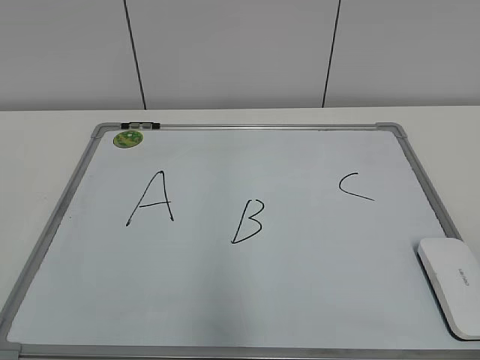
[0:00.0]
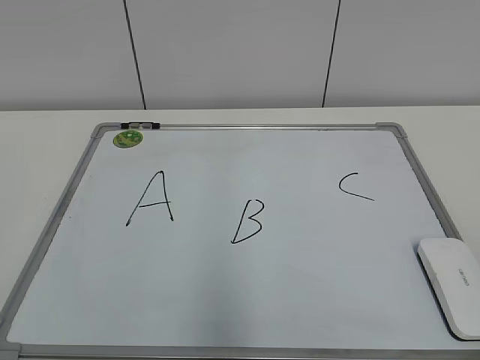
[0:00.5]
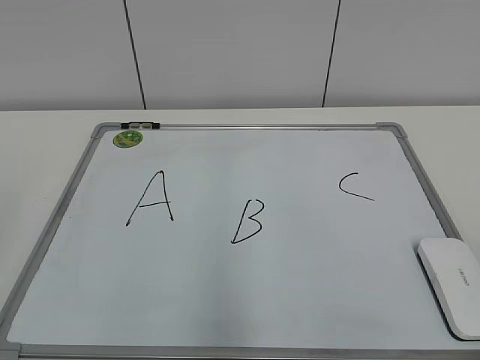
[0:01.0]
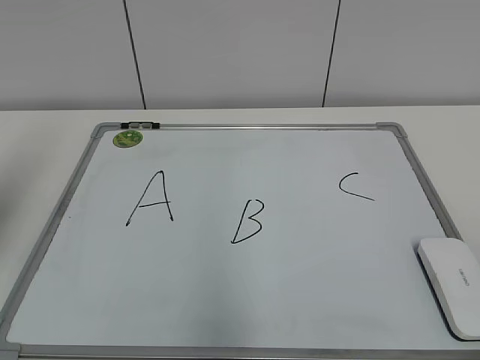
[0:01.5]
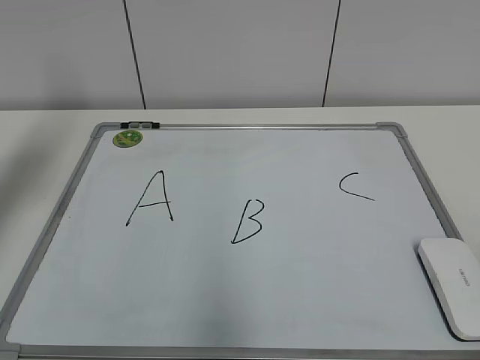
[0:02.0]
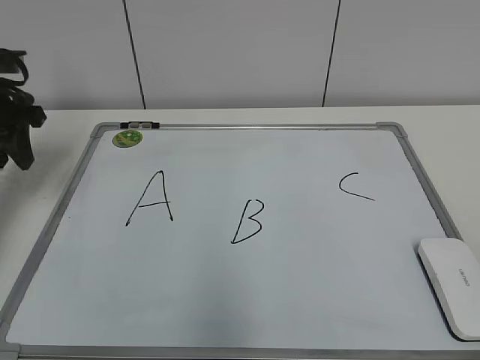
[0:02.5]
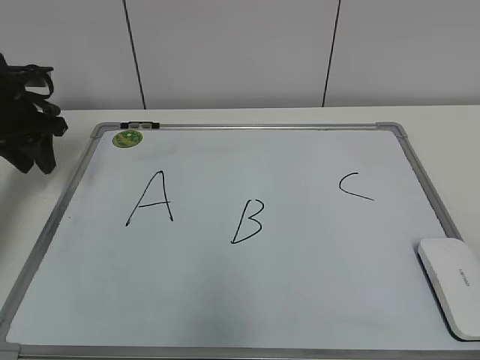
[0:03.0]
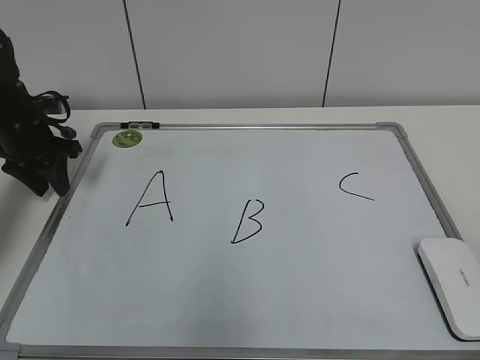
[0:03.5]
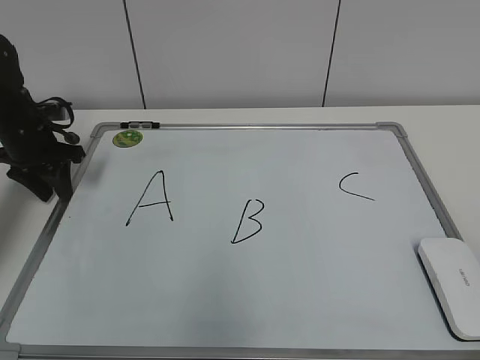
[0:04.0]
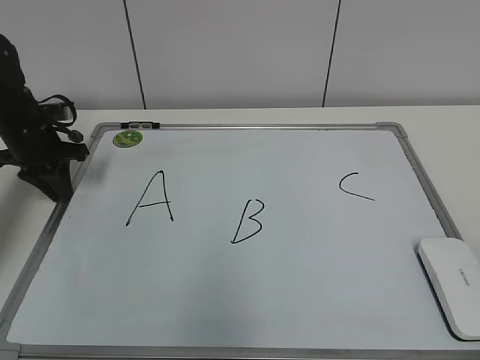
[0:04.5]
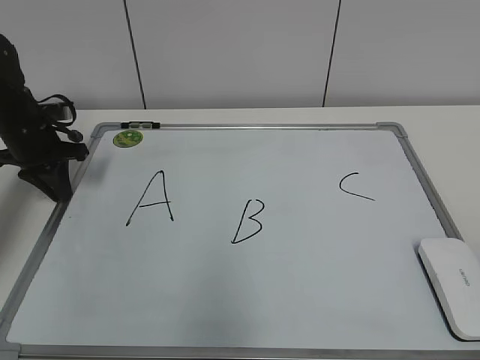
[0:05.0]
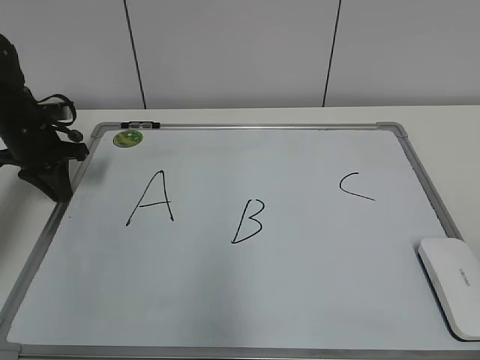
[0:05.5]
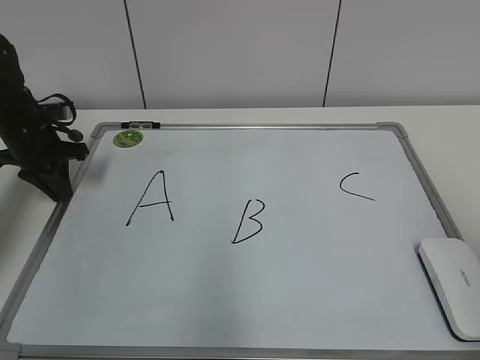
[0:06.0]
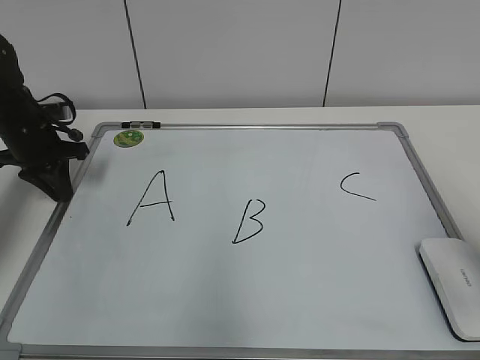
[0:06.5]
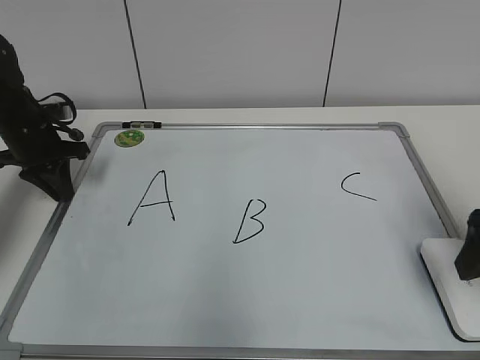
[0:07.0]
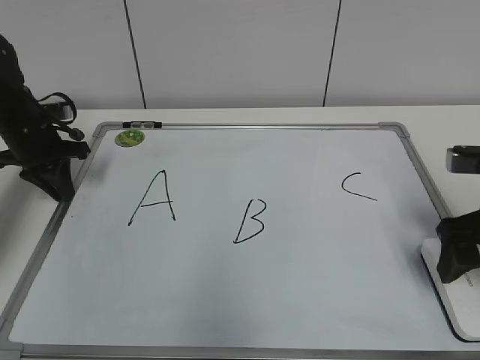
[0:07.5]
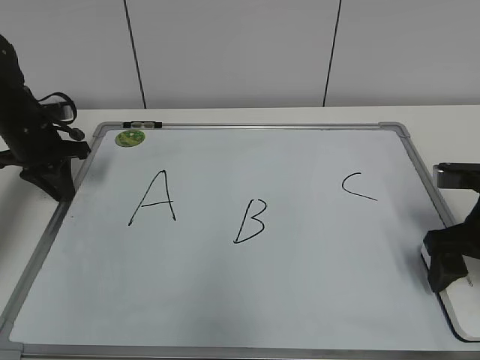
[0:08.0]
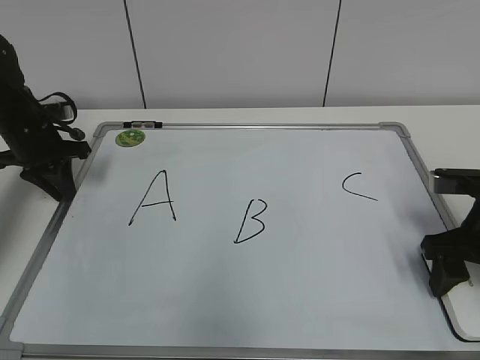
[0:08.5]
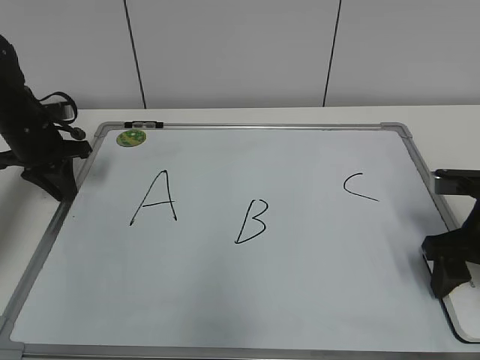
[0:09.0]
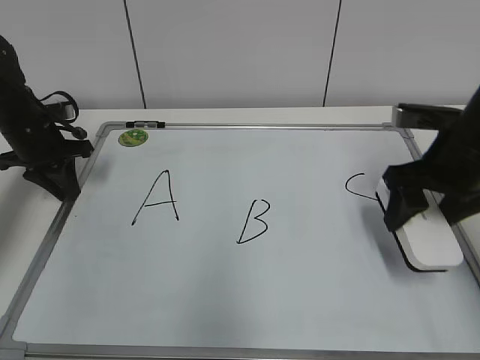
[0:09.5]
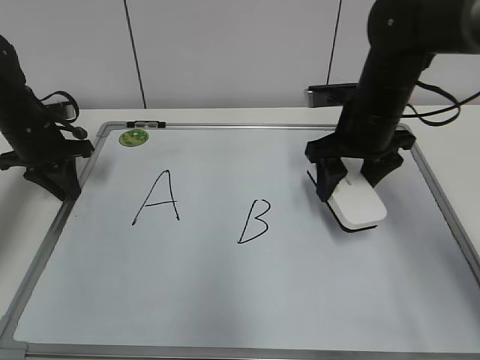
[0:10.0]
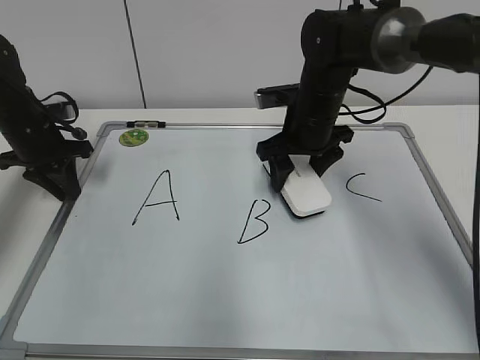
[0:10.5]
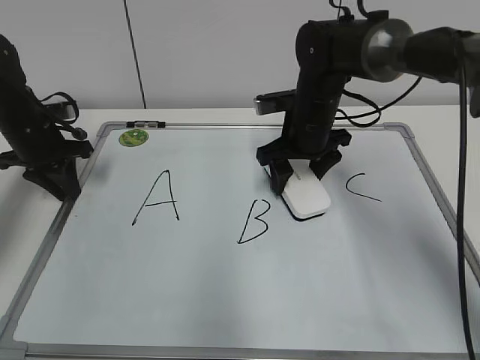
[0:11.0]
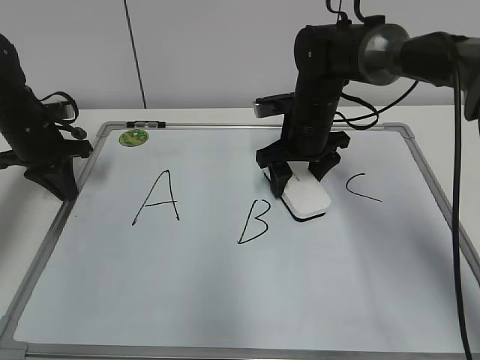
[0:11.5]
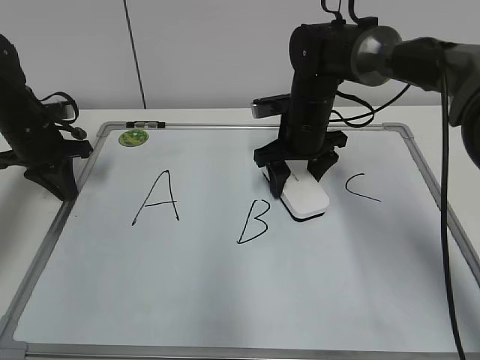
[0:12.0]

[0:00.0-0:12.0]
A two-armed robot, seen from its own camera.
Task of the whole recording: pick up the eraser on the blackboard and erase the letter "B".
Step, 0:00.0 to 0:04.5: Hold the drawing board steady with your left hand.
Step, 0:05.0 to 0:08.5: Grab the eraser with your right hand.
0:02.0 to 0:04.0: The left gripper goes roughly 20 cm downward and forward.
0:04.0 to 0:06.0: The left gripper closes its fingers.
0:06.0 to 0:08.0: The right gripper is displaced forward and downward by about 25 cm, and opens up.
0:08.0 to 0:10.0: The right gripper moves forward and to the left, approximately 15 cm, and closes up.
0:10.0 to 0:12.0: The right gripper heads to the left, forward and downward, covering approximately 10 cm.

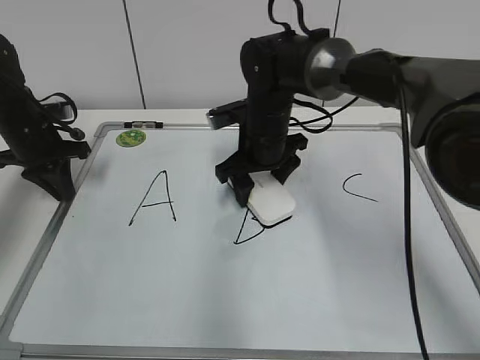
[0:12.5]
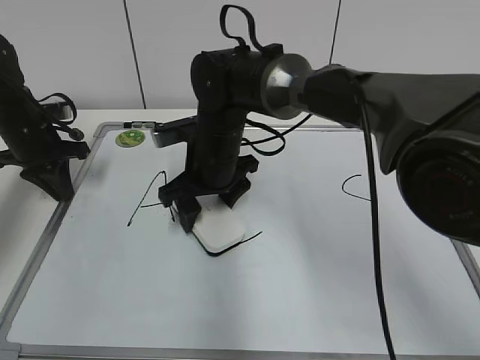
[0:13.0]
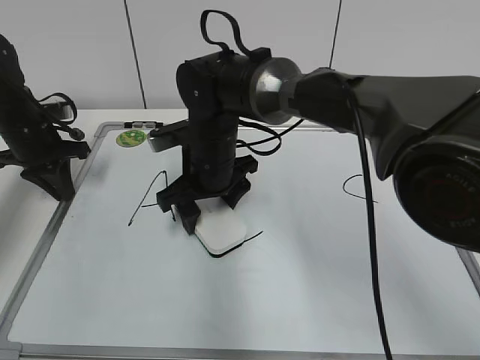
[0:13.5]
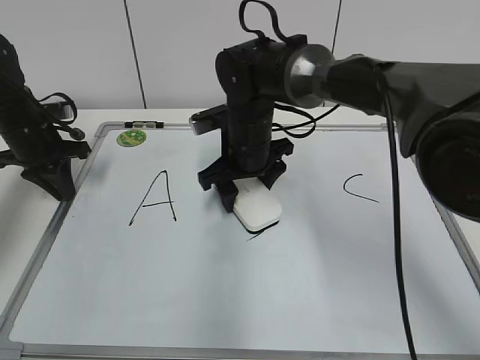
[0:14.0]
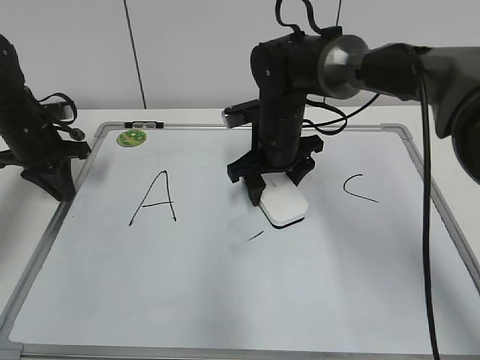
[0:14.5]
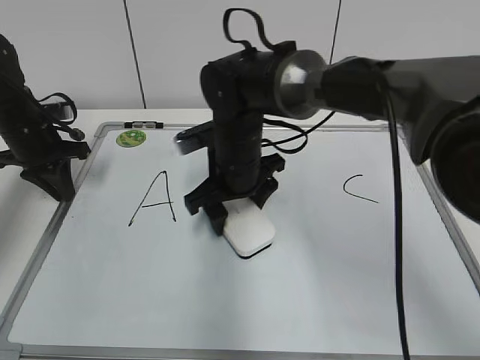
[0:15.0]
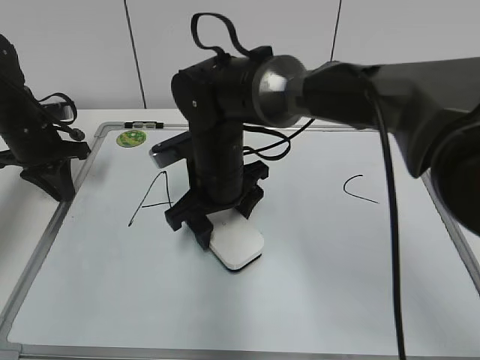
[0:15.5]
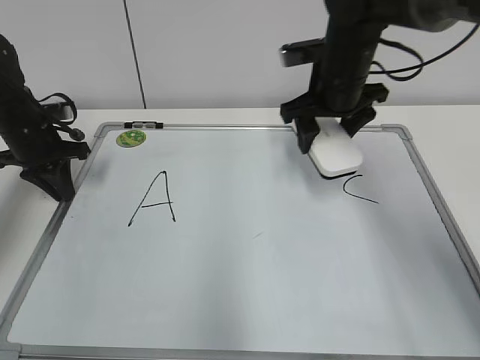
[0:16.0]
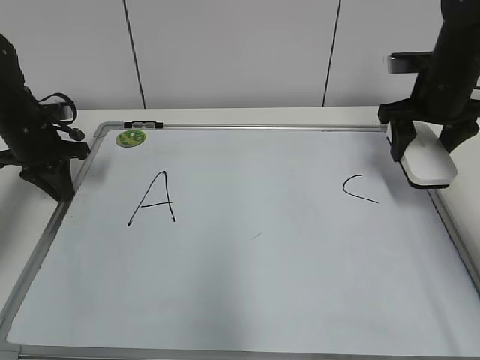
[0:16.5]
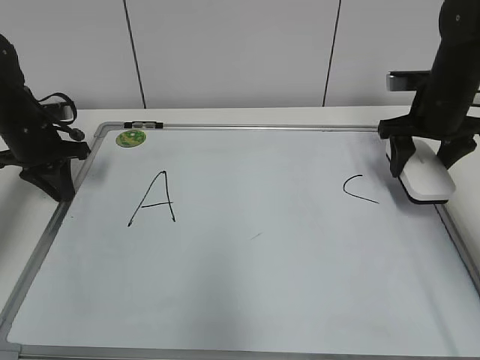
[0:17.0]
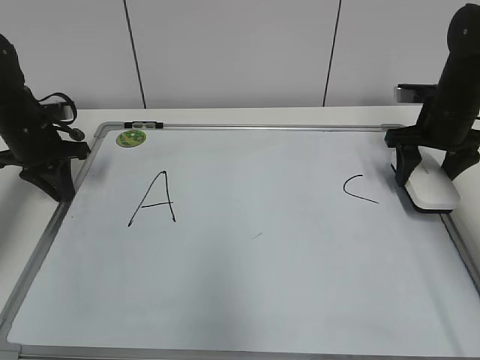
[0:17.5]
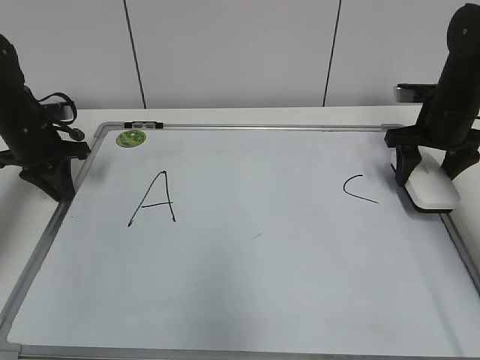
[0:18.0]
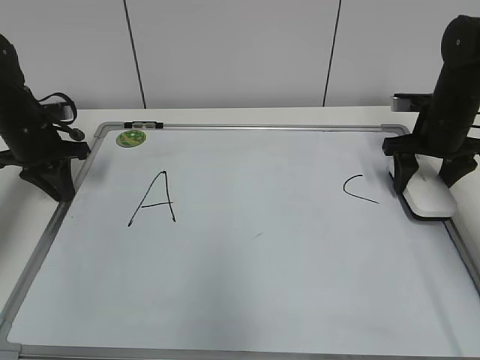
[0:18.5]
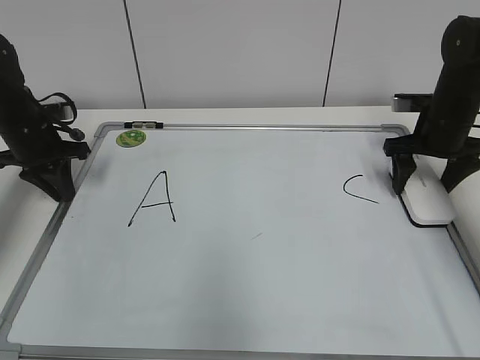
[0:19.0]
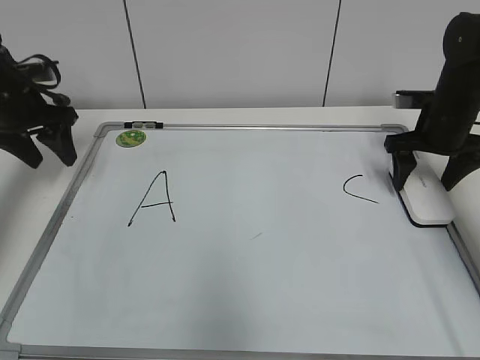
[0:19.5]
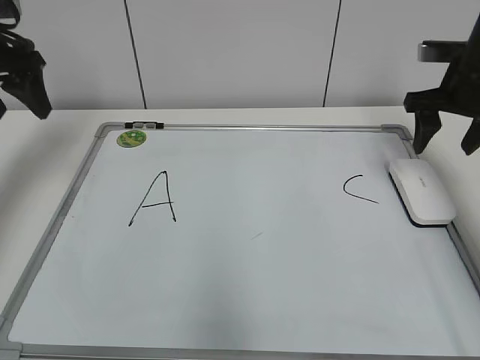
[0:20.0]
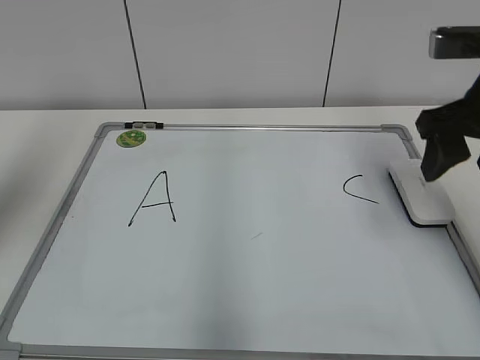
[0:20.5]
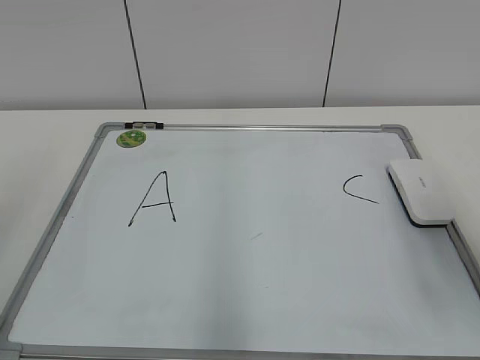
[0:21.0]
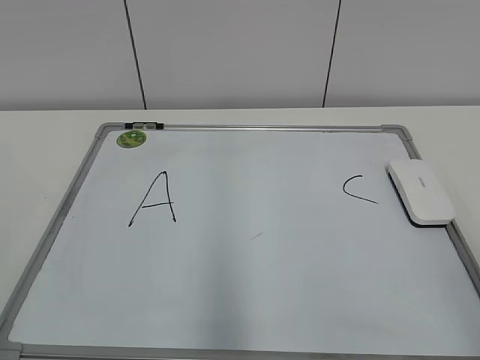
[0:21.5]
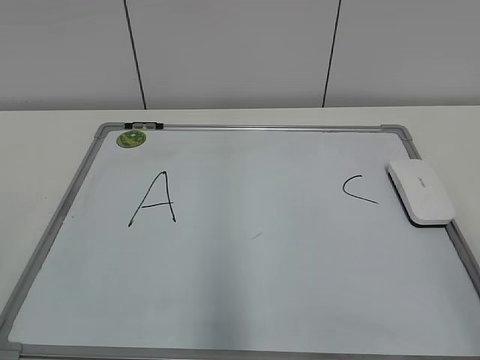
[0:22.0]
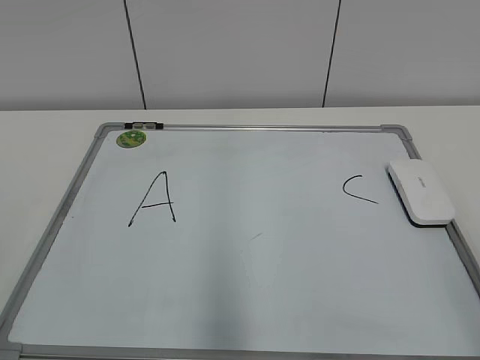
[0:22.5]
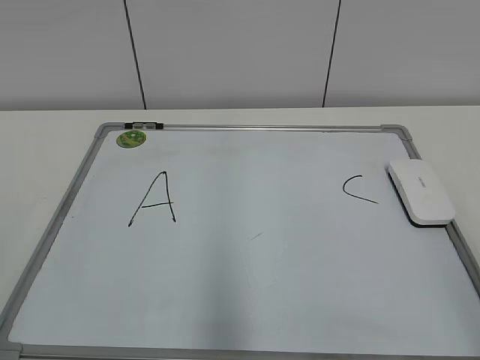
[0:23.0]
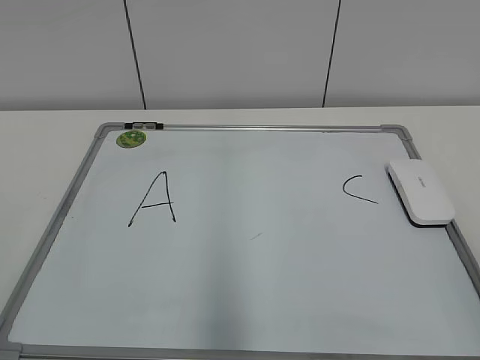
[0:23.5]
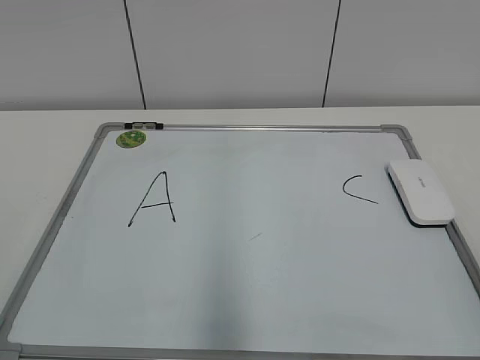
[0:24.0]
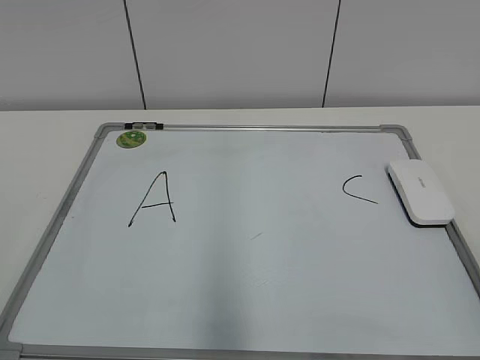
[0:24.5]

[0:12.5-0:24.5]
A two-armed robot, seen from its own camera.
Task of the whole recording: pick up the eraser on the blackboard and erase the letter "B".
Step, 0:12.5 to 0:15.0: Erase the letter B with your right hand.
0:12.5 to 0:14.5: The right gripper goes to the left and returns, roughly 5 cm each way.
0:14.5 to 0:16.5: The right gripper moves to the right, roughly 20 cm.
0:16.5 to 0:18.5: The right gripper shifts approximately 5 cm downward.
0:18.5 to 0:20.5: The right gripper travels backward and upward by approximately 20 cm, and opens, then closes again, while the left gripper goes roughly 30 cm upward and backward, and opens up.
0:20.5 to 0:22.5: The two grippers go some 25 cm backward.
